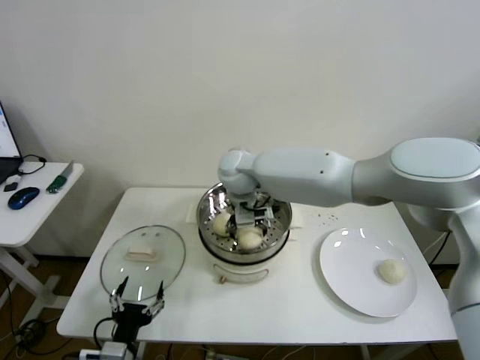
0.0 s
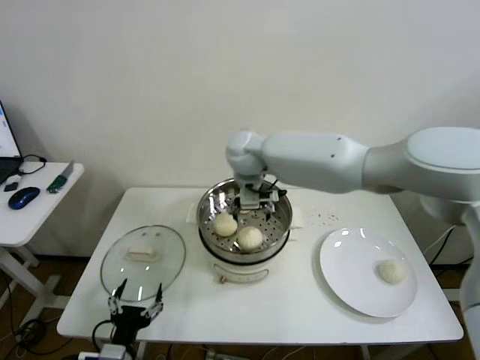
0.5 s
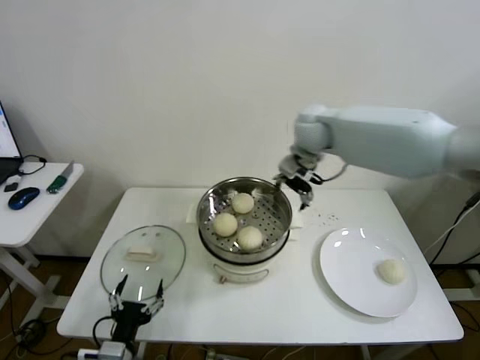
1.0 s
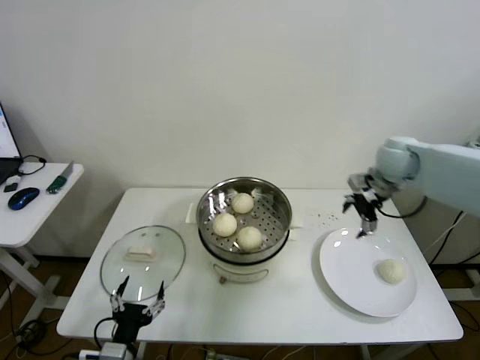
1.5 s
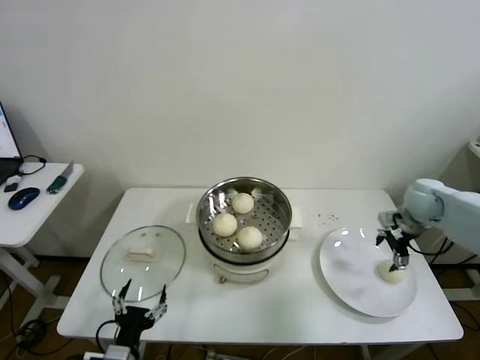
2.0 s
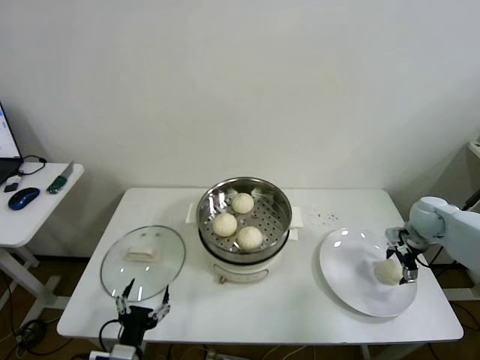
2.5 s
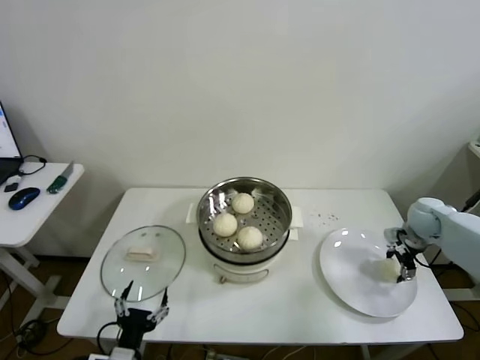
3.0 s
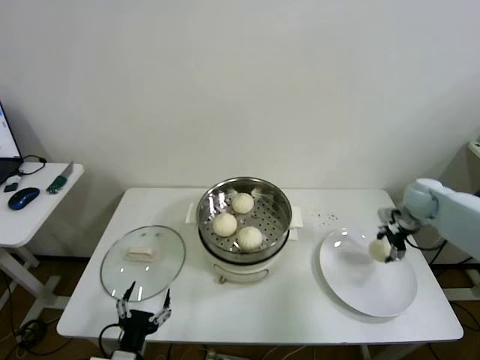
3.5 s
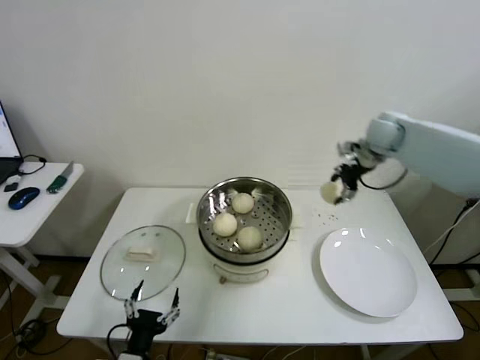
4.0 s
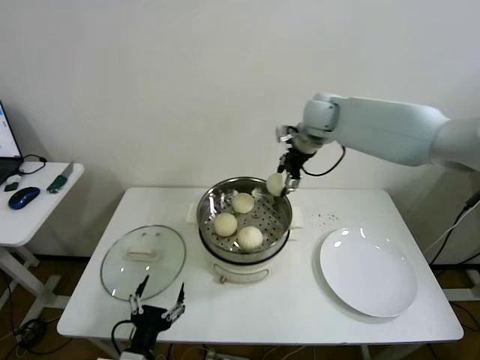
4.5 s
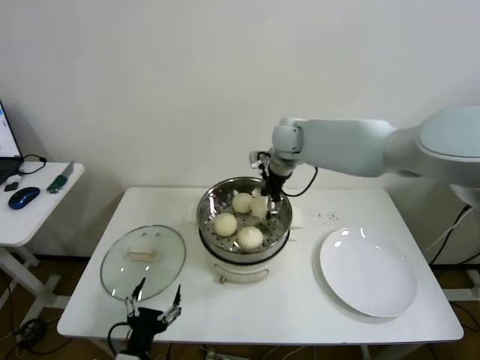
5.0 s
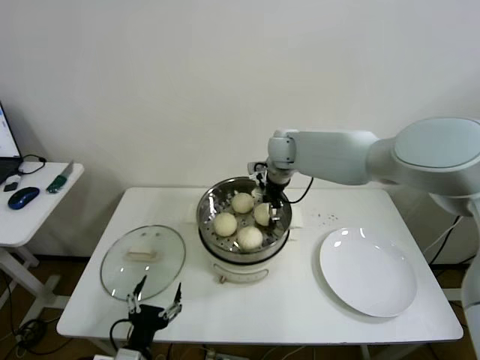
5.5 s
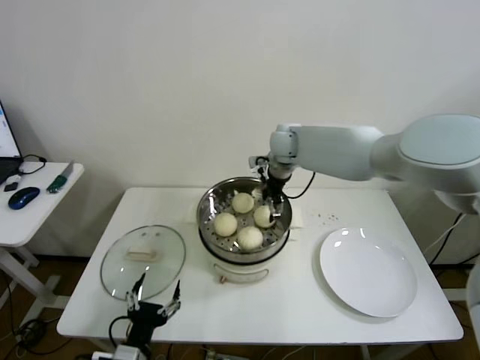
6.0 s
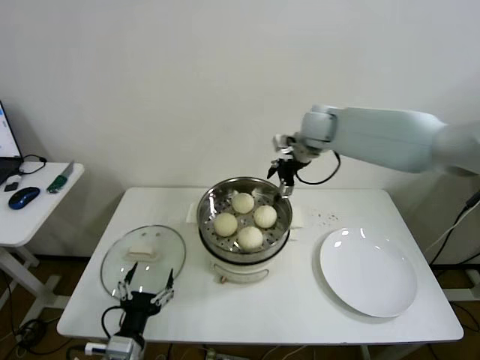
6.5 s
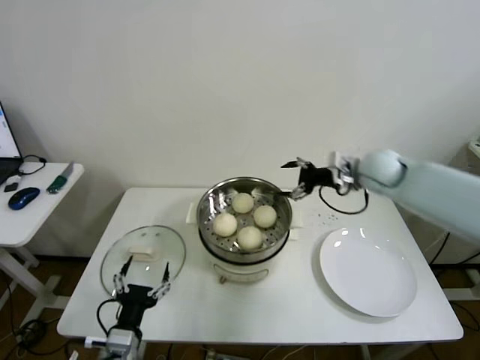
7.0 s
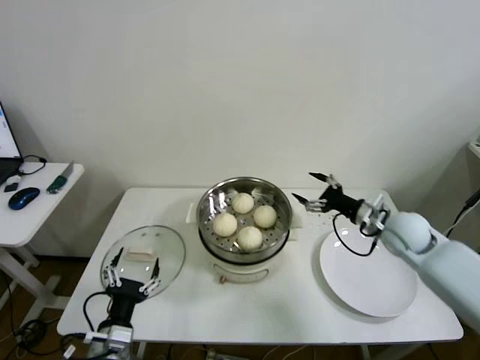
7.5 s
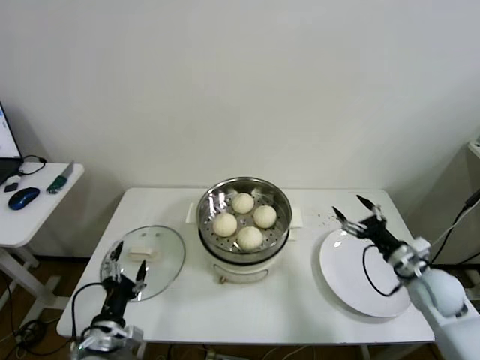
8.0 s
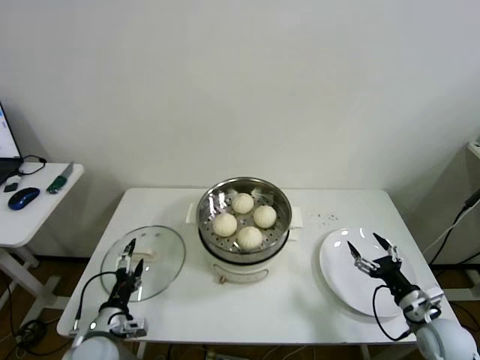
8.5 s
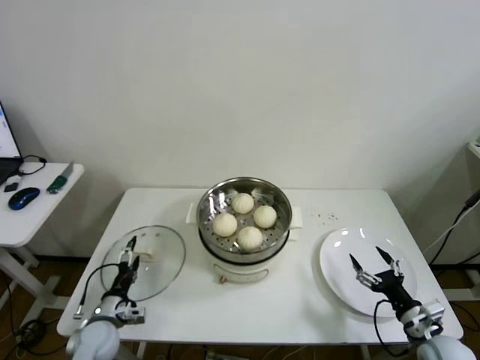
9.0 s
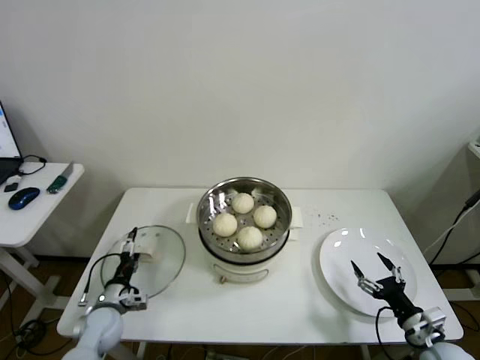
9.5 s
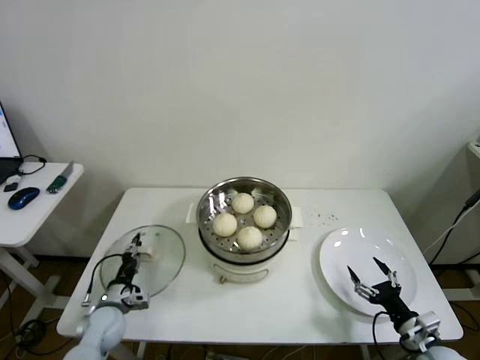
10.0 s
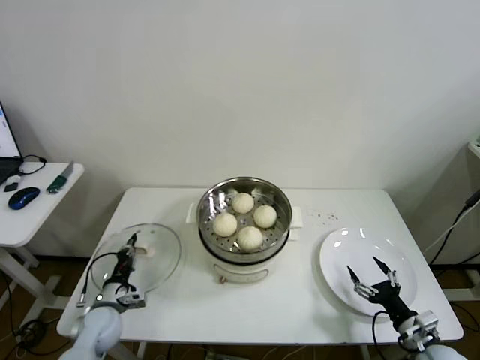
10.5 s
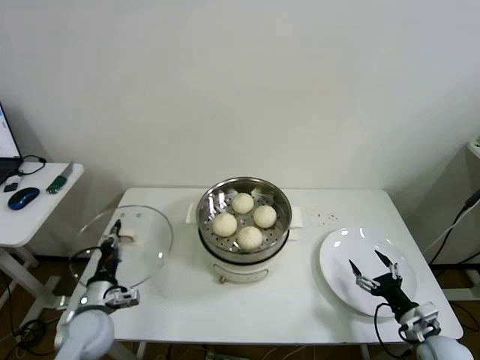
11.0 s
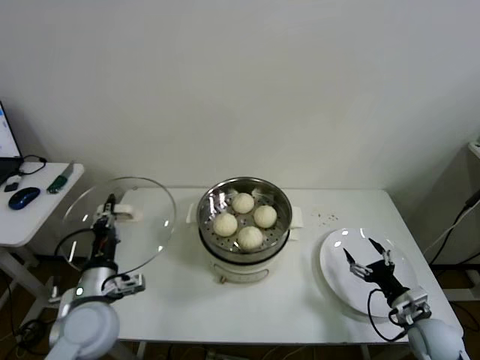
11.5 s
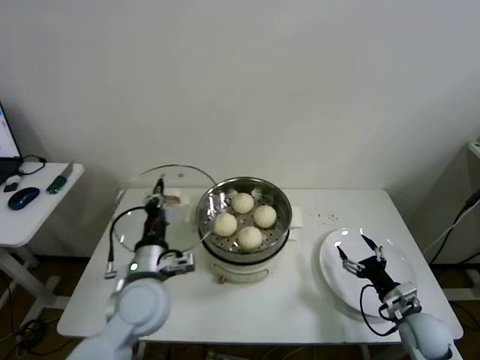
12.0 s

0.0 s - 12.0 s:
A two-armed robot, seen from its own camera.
Step, 0.0 s - 2.5 s: Grasp the baozi in the plate with right gripper.
Step, 3.0 s - 5.5 s: Place the baozi on the steamer with right gripper.
Step, 6.0 s - 10.0 s: Grasp the pot lid with left gripper.
0.0 s - 2.0 s: The right gripper travels to the right by roughly 40 cm.
2.0 s - 4.0 s: The right gripper travels upward, to the left and forward by approximately 20 cm, and closes.
4.0 s - 6.0 s: The right gripper shifts roughly 20 cm to the left, and opens its fingers.
6.0 s - 8.0 s: The right gripper heads to the right, backward and downward, covering approximately 50 cm. The left gripper shifts some 5 cm to the left.
8.0 s - 10.0 s: The left gripper shifts roughly 20 cm forward, downward and to the left, and closes; the right gripper goes roughly 15 cm backward and downward.
10.0 s - 12.0 s: The left gripper is displaced upward and to the right by some 25 cm, and closes its fingers, while the right gripper shifts roughly 5 cm forward.

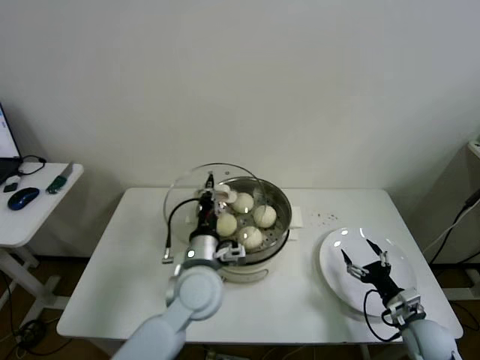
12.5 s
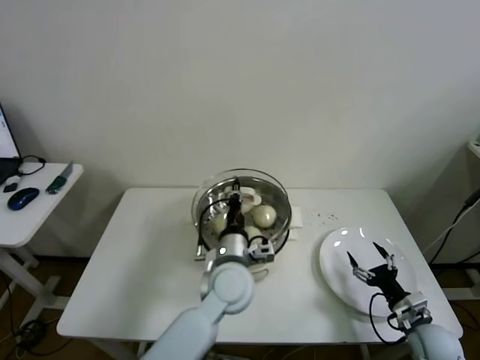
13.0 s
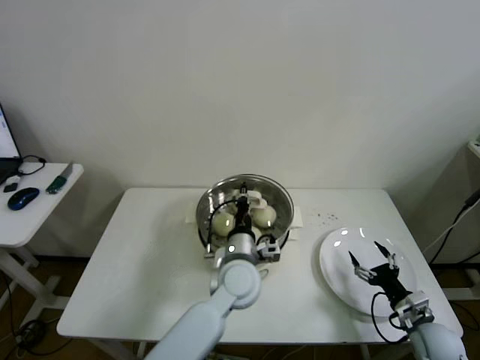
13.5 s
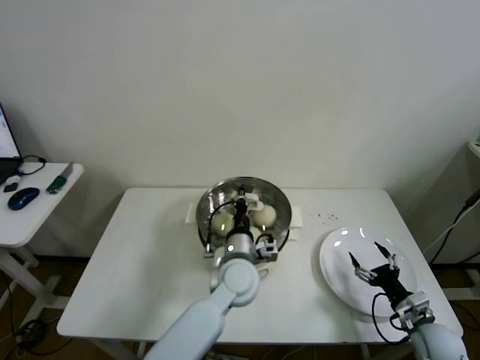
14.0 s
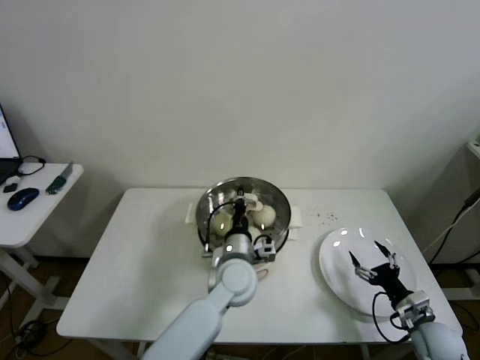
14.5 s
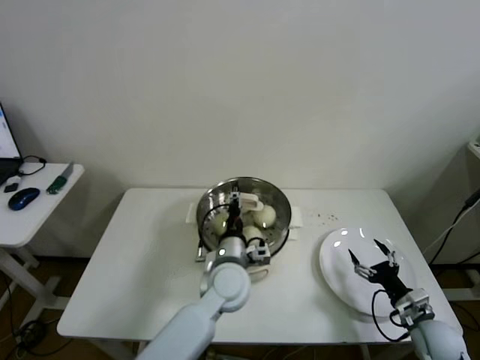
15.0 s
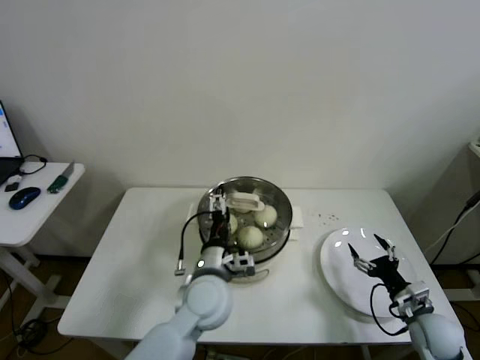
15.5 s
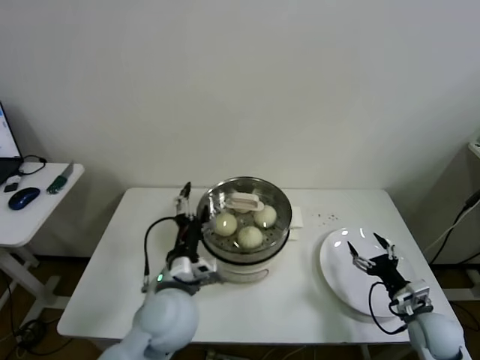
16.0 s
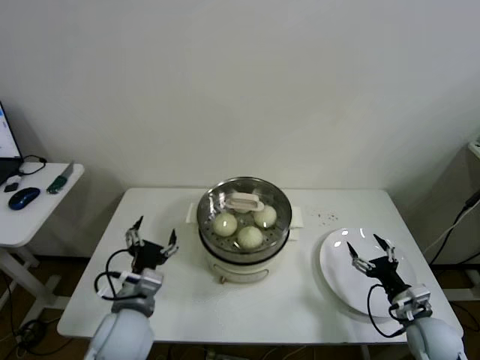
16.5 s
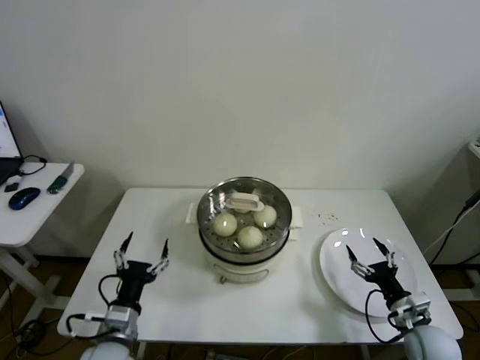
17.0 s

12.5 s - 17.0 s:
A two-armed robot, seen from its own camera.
Step, 12.5 s - 14.5 s: Place the pot lid on the steamer with left gripper.
12.5 s - 14.5 s: The left gripper is displaced to the right and downward by some 10 cm.
14.5 s - 17.0 s: The left gripper shifts roughly 30 cm to the left and backward, and opens.

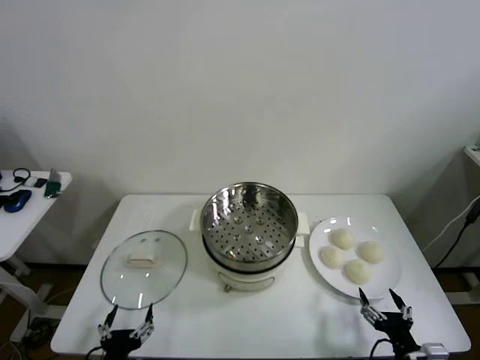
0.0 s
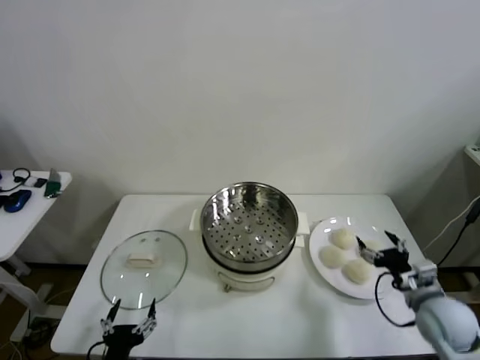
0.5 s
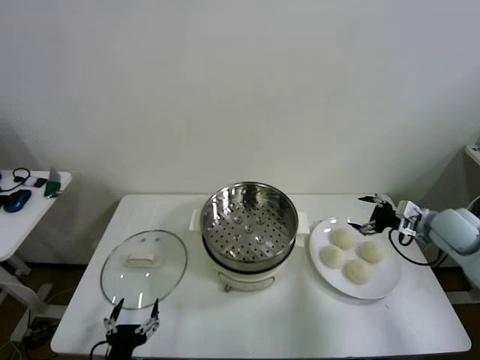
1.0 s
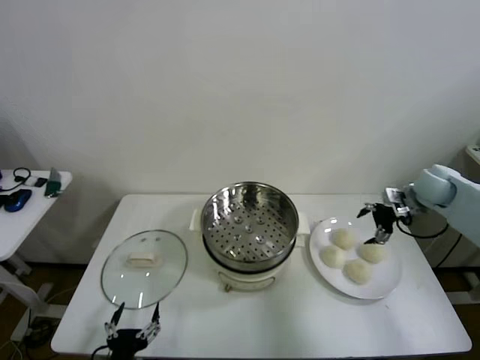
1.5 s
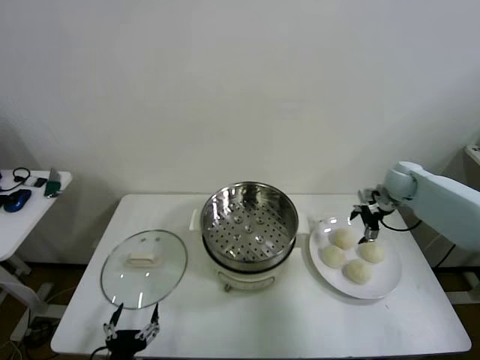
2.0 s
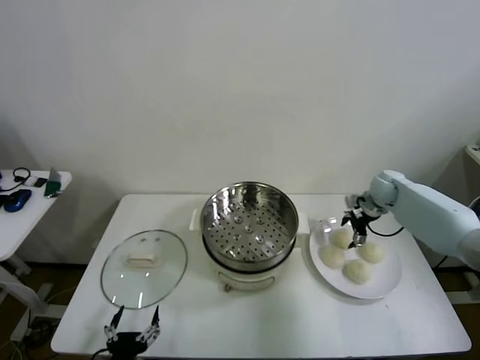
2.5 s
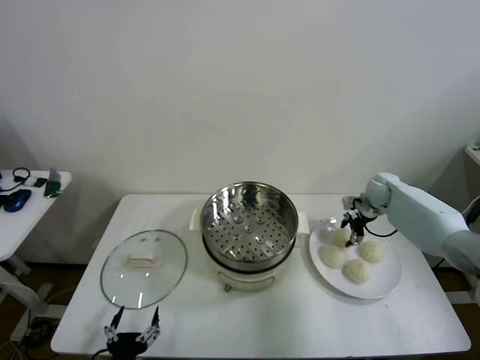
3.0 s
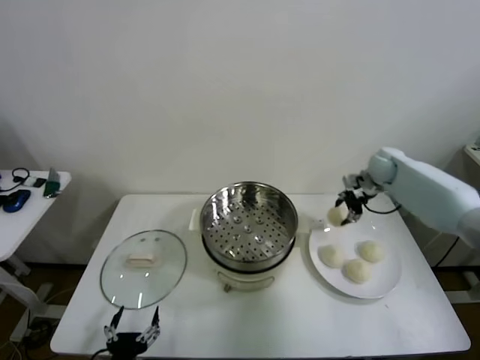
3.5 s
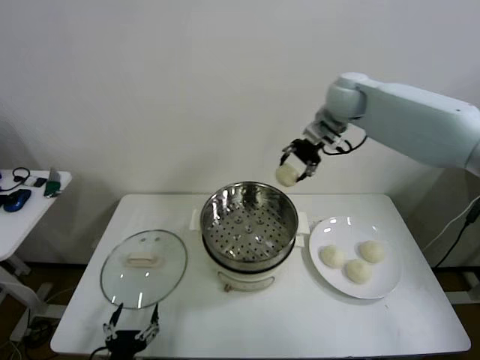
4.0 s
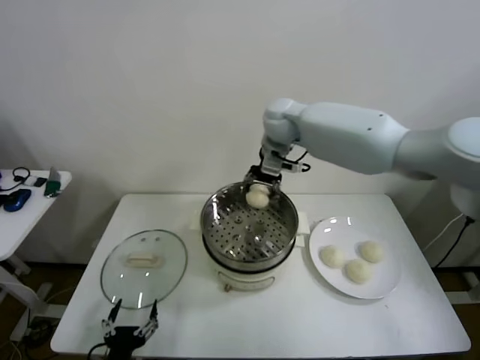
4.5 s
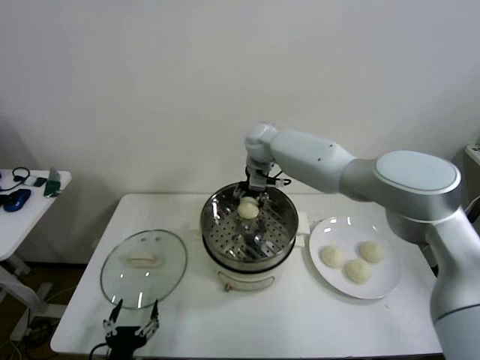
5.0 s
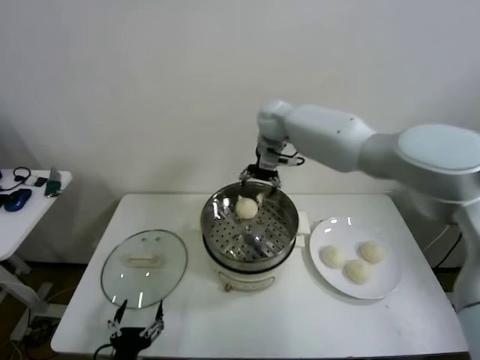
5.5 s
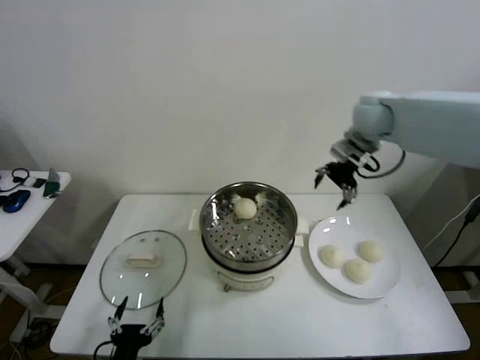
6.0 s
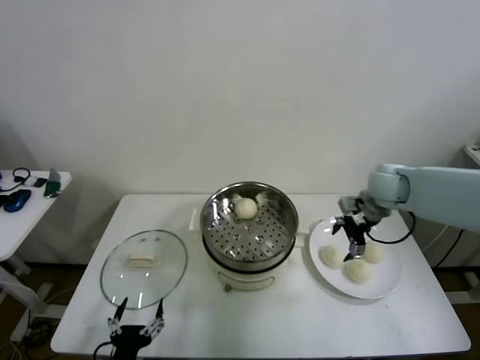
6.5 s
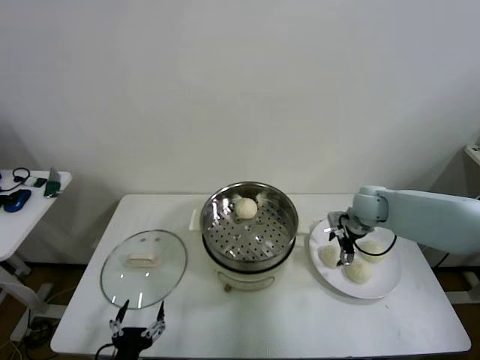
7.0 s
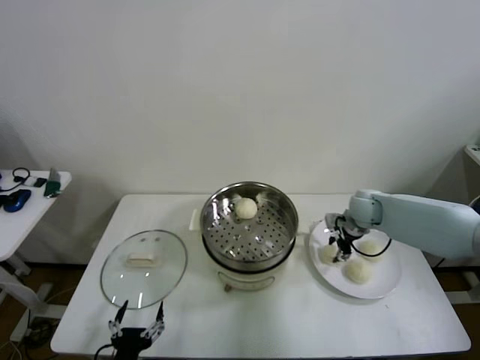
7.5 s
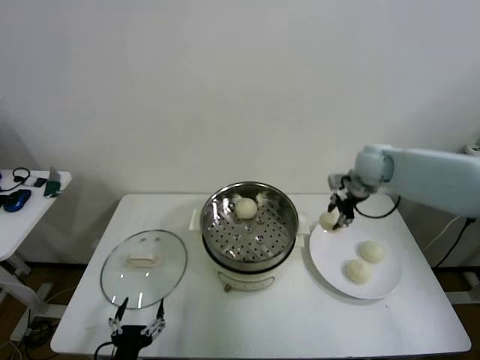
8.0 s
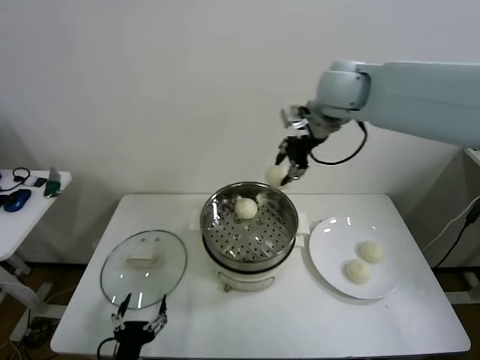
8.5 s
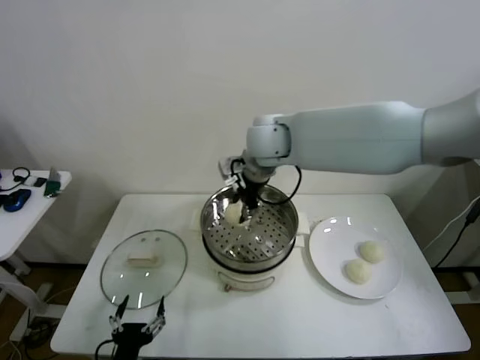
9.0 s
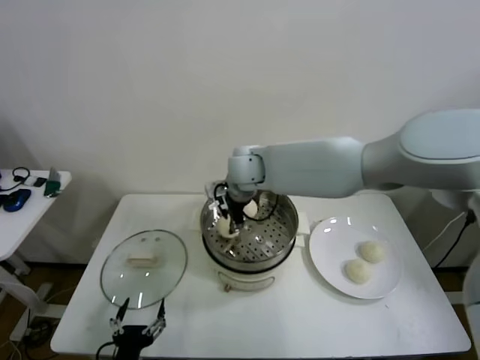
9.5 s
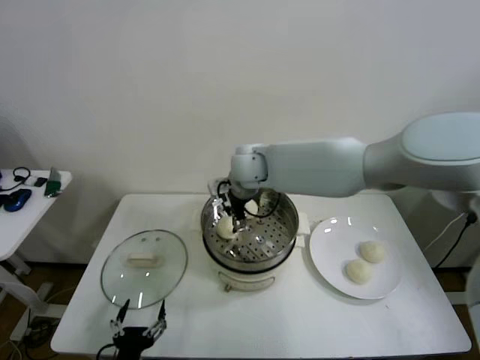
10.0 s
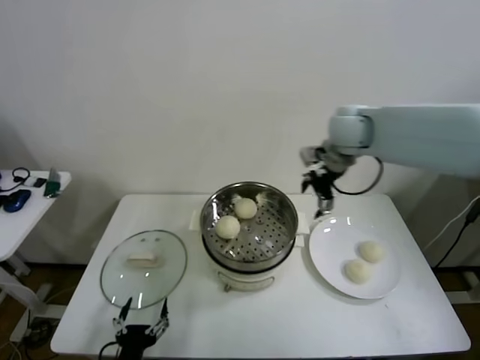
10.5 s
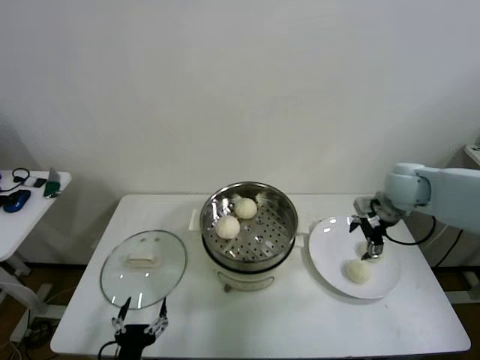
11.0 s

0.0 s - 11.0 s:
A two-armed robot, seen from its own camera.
Step, 0.0 s - 3.0 s: Grasp the baozi in the plate with right gripper.
Step, 3.5 s - 5.0 s: Place the baozi on the steamer with right gripper.
Step, 5.5 s - 7.0 s: Grasp the baozi in the plate with right gripper.
Step, 7.5 s - 9.5 s: Place the baozi on the steamer with right gripper.
2.0 s - 3.5 s: The right gripper travels upward by roughly 5 cm, and closes its fingers.
3.5 s - 5.5 s: The right gripper shifts about 30 cm to the left and upward, and opens up.
5.5 s - 7.5 s: The right gripper travels downward, to the right and backward by some 35 cm, and closes.
7.5 s - 9.0 s: The right gripper heads to the left and upward, covering roughly 35 cm.
9.0 s - 11.0 s: The right gripper goes approximately 30 cm to the right, and opens its fingers.
